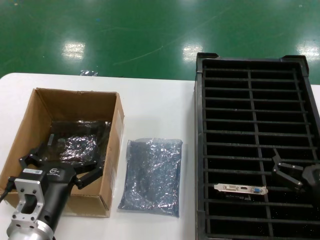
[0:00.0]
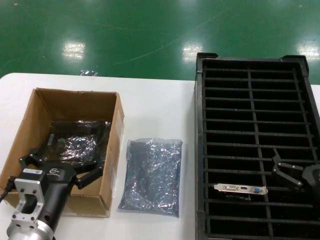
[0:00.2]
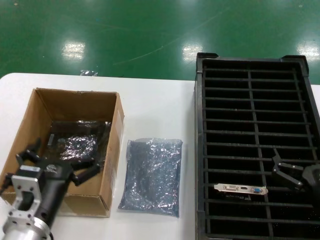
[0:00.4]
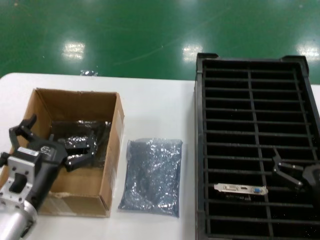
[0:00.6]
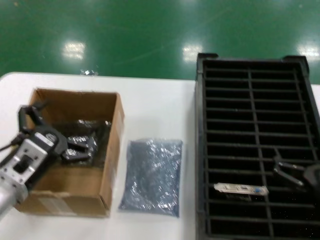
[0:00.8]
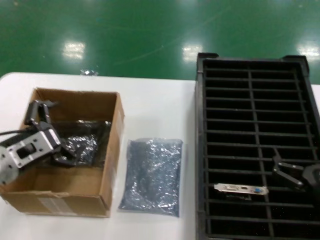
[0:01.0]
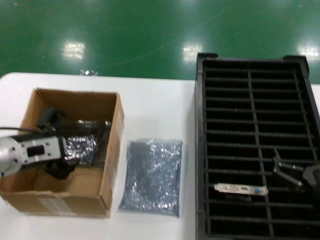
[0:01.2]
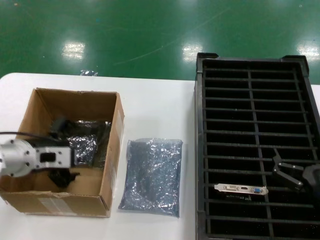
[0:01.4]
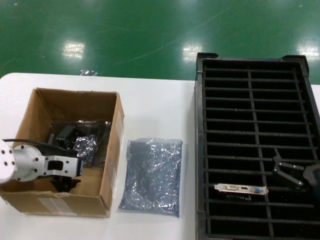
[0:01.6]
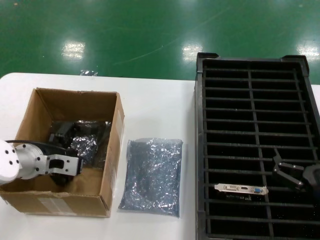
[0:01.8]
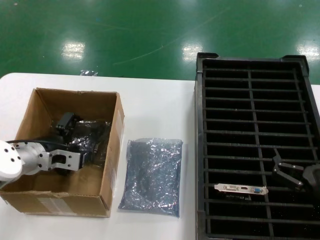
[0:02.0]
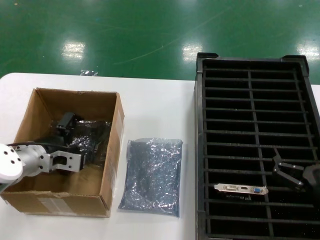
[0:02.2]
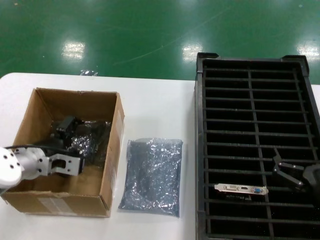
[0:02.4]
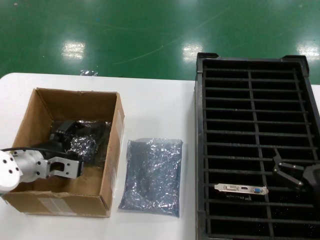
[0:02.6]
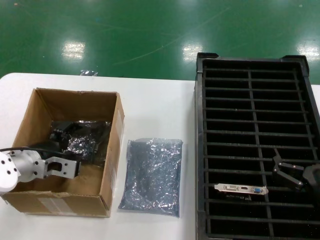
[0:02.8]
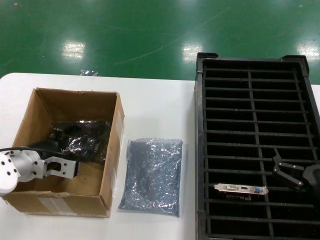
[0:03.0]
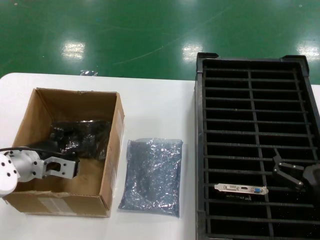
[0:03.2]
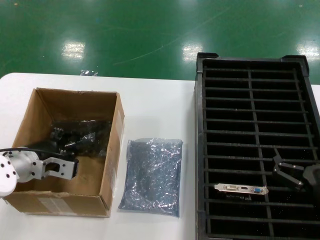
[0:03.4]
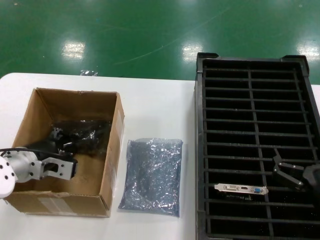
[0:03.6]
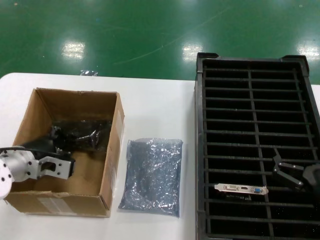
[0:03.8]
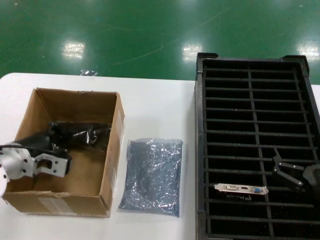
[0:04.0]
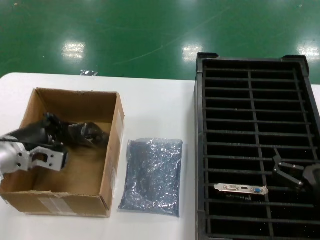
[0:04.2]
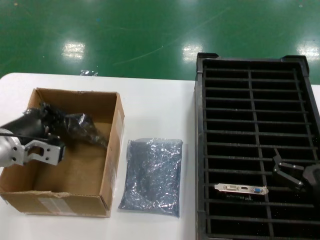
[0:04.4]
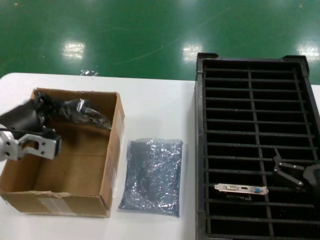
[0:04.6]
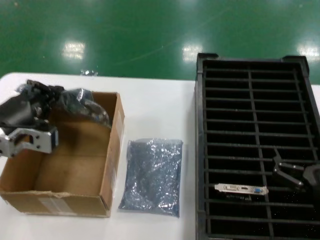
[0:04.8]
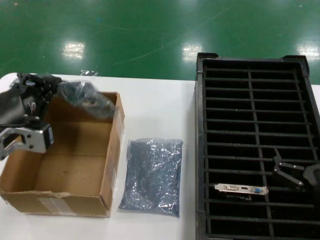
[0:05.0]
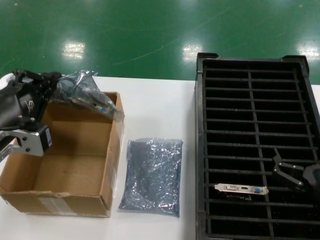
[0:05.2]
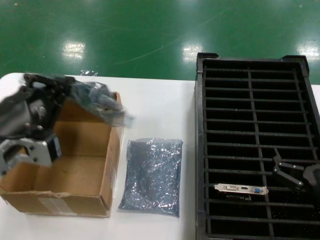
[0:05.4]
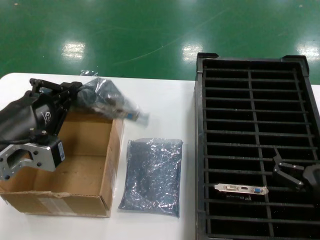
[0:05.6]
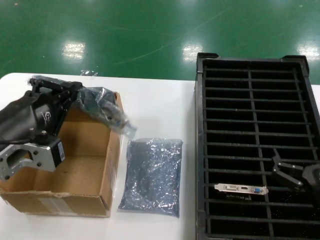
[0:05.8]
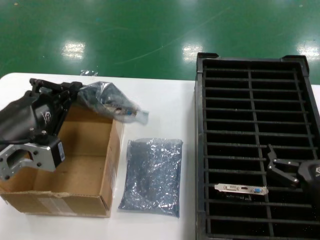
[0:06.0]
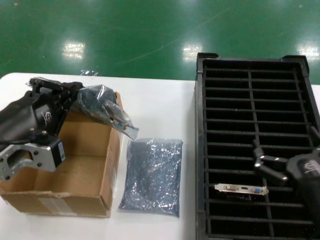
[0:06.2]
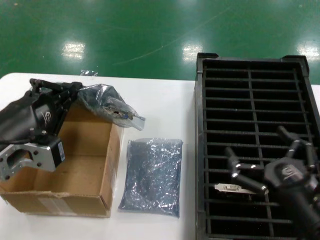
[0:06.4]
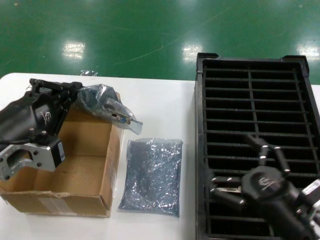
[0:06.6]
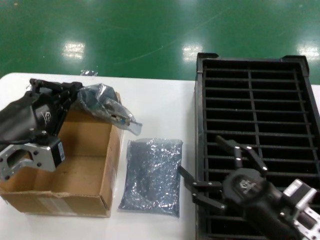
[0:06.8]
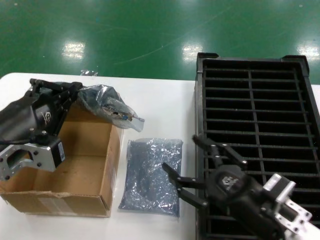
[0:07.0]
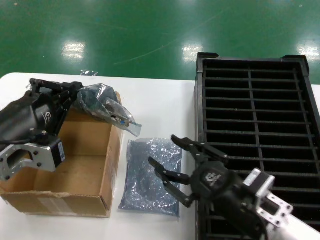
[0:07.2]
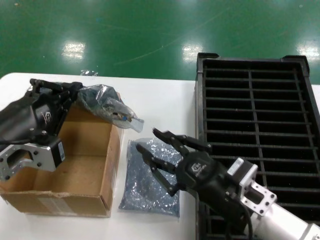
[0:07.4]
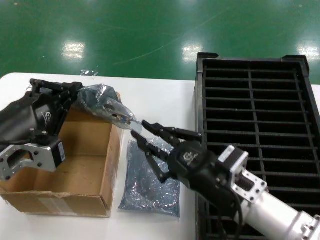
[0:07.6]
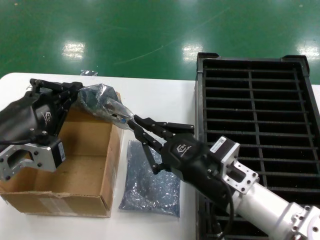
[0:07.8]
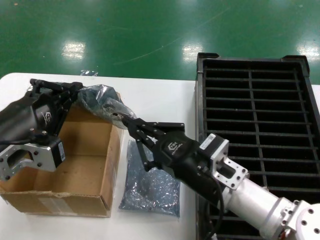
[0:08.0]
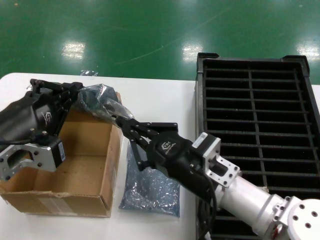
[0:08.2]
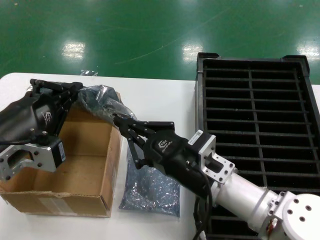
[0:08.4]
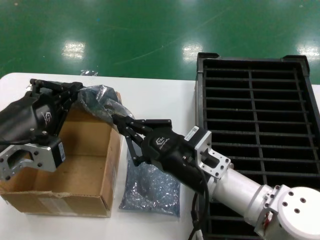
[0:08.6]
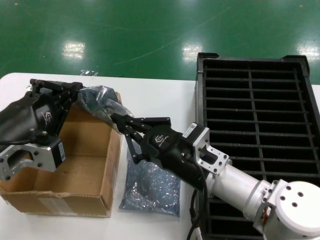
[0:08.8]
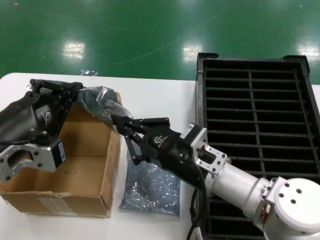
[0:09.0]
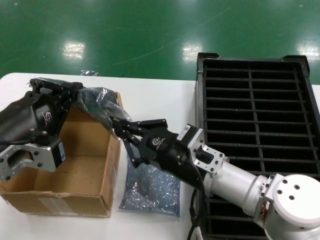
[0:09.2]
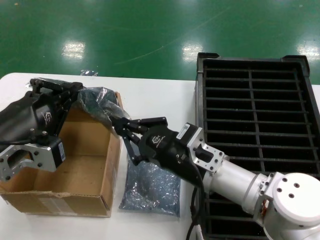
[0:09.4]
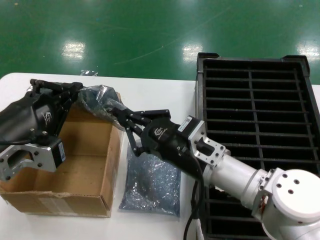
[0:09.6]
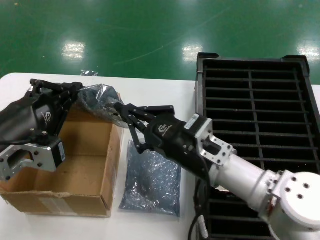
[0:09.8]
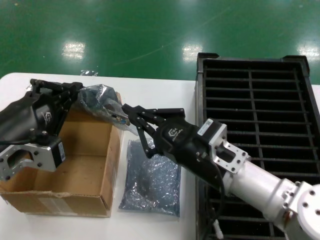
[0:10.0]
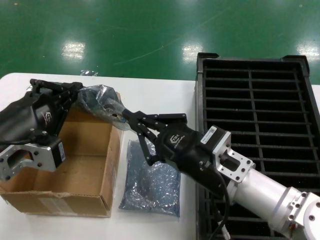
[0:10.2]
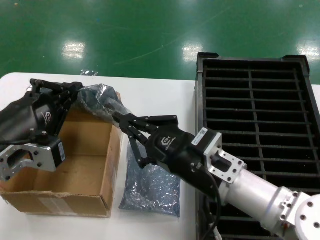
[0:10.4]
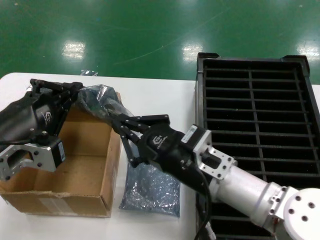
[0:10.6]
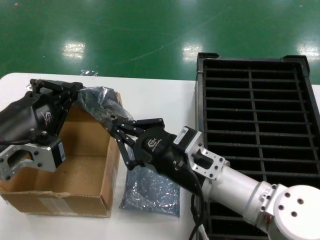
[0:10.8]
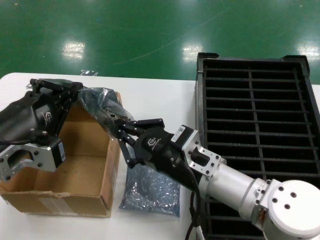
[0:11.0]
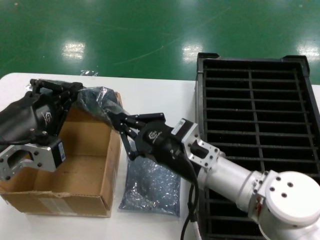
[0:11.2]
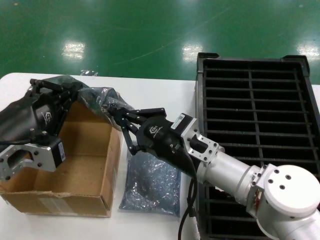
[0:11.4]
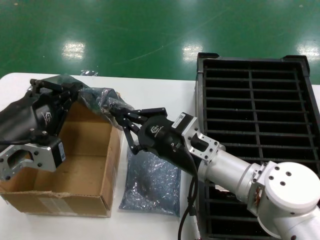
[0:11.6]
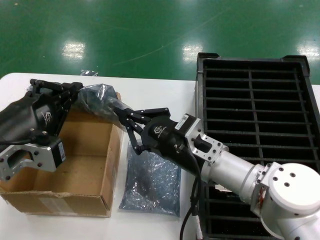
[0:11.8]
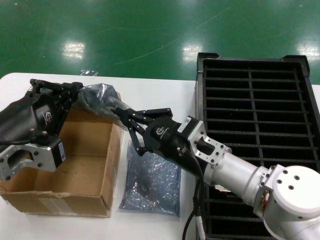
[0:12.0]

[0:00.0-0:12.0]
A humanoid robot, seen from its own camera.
Task of the whole recording: take out graphics card from box remove packaging put into black container.
Step, 0:00.0 to 0:03.6: Grasp the bag.
Step, 0:04.0 to 0:05.8: Lift the bag.
0:00.0 to 0:01.6: The left hand shifts approximately 20 cm forward, to the left and upward.
0:01.6 to 0:03.0: There are only small adjustments of the hands.
0:03.0 to 0:04.4: The left hand travels upward by roughly 5 cm.
0:04.4 to 0:06.0: The left hand goes approximately 15 cm backward, upward and to the right.
0:06.0 to 0:07.6: The right hand moves to the left and upward, roughly 15 cm.
0:07.6 to 0:09.0: The right hand shifts approximately 5 cm forward.
0:09.0 to 0:10.4: The right hand changes place by about 5 cm.
0:10.4 to 0:12.0: The right hand heads forward, covering roughly 5 cm.

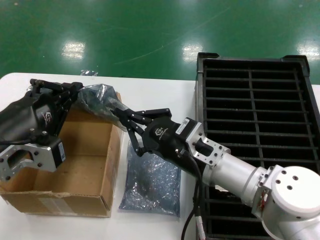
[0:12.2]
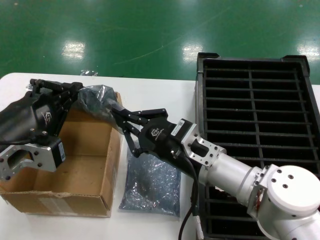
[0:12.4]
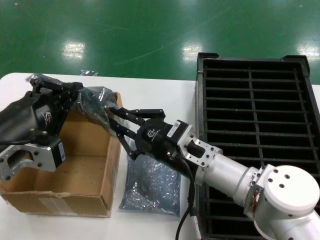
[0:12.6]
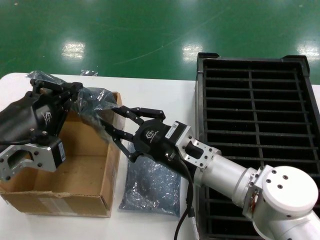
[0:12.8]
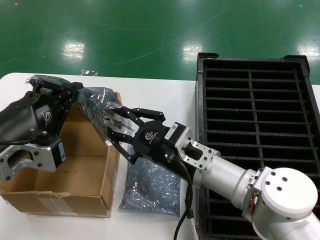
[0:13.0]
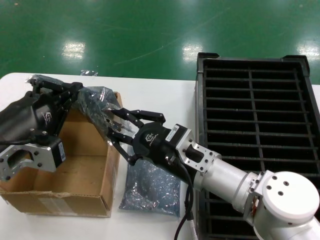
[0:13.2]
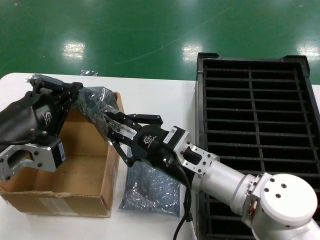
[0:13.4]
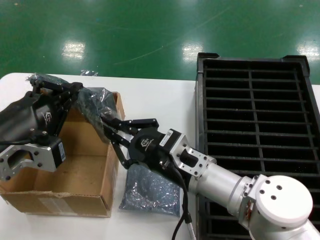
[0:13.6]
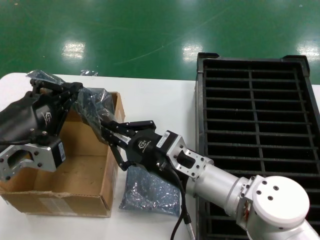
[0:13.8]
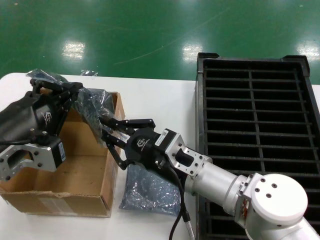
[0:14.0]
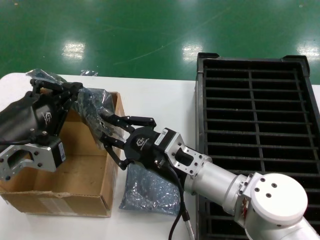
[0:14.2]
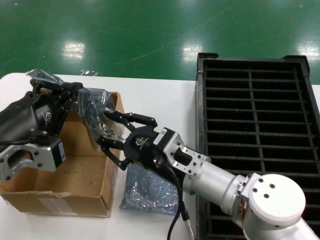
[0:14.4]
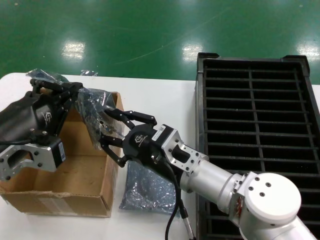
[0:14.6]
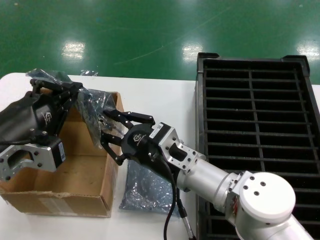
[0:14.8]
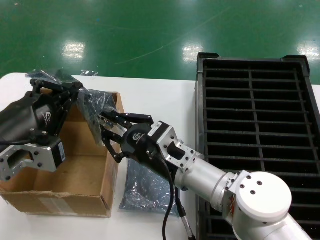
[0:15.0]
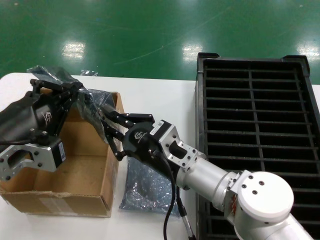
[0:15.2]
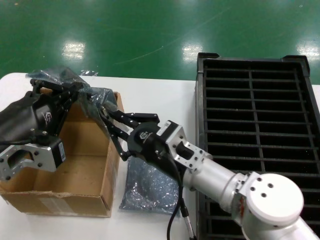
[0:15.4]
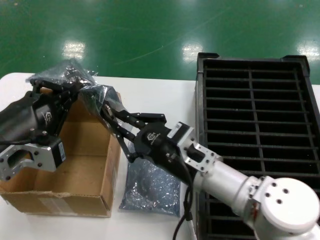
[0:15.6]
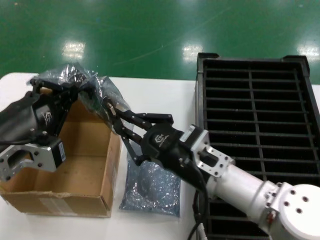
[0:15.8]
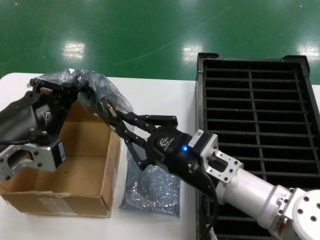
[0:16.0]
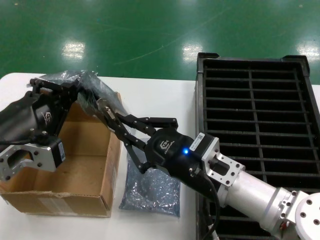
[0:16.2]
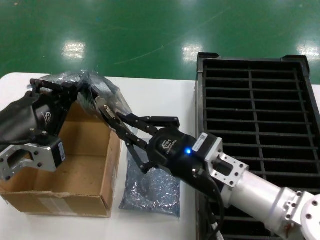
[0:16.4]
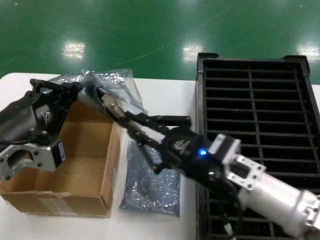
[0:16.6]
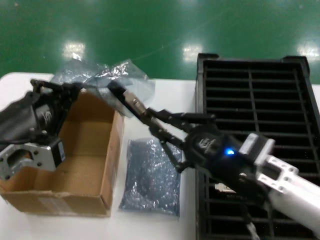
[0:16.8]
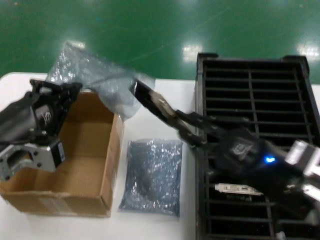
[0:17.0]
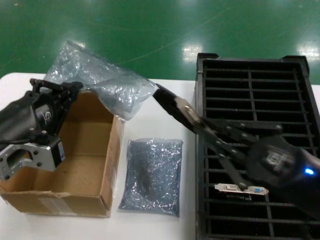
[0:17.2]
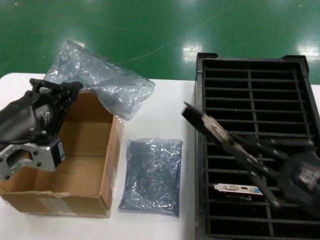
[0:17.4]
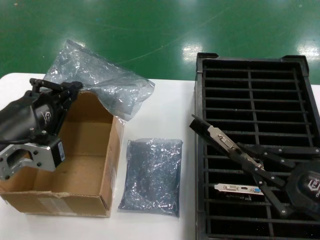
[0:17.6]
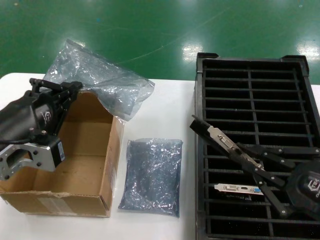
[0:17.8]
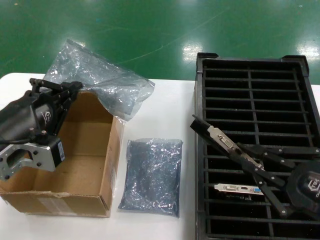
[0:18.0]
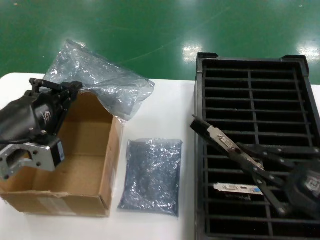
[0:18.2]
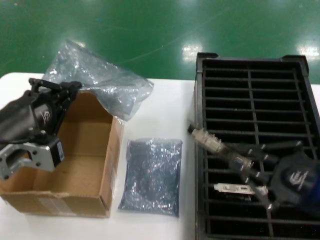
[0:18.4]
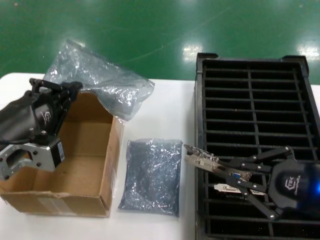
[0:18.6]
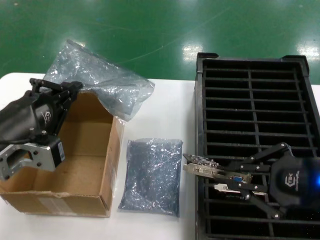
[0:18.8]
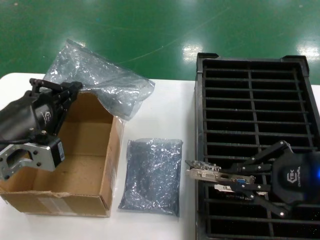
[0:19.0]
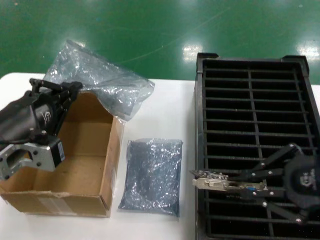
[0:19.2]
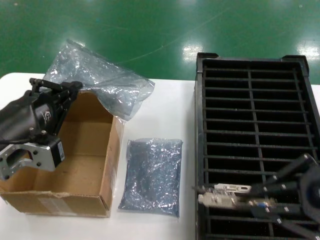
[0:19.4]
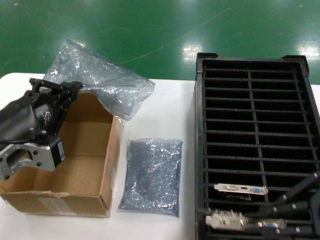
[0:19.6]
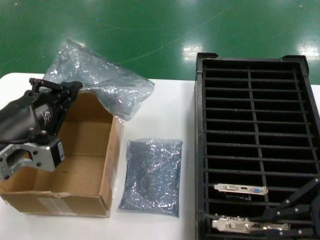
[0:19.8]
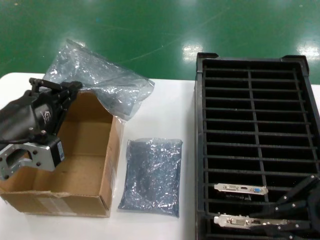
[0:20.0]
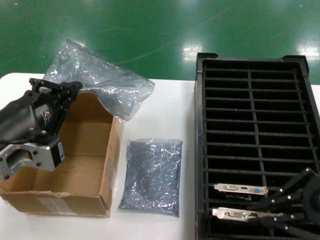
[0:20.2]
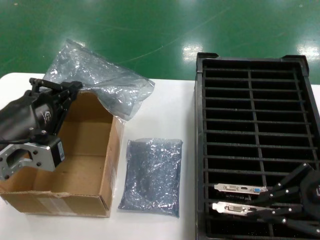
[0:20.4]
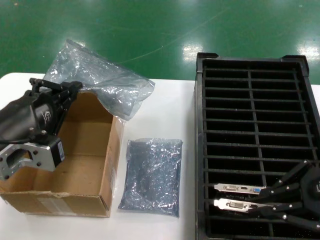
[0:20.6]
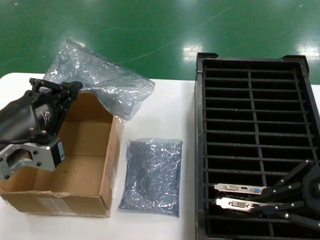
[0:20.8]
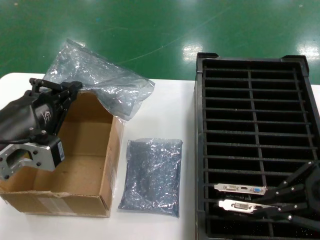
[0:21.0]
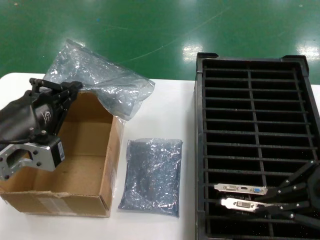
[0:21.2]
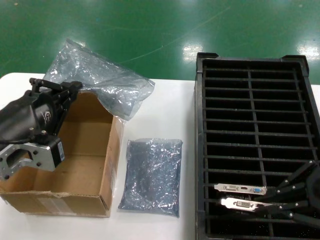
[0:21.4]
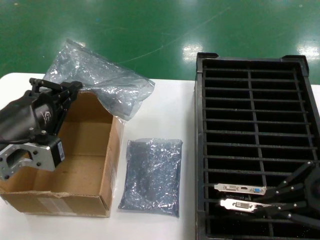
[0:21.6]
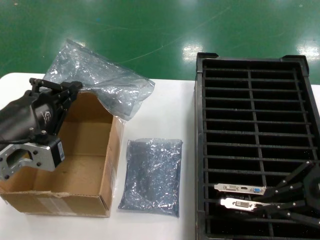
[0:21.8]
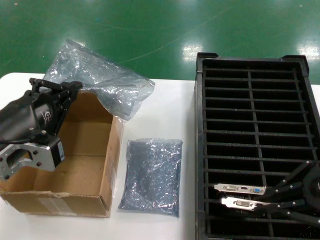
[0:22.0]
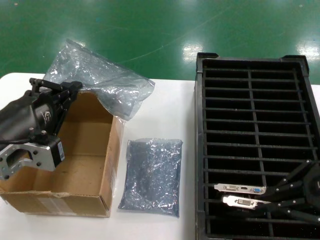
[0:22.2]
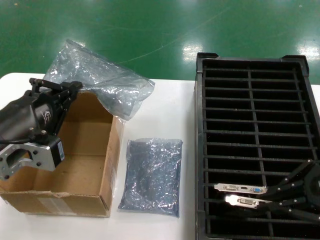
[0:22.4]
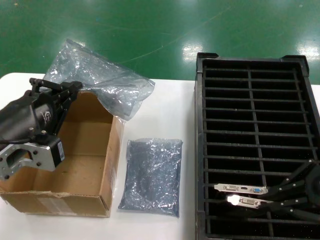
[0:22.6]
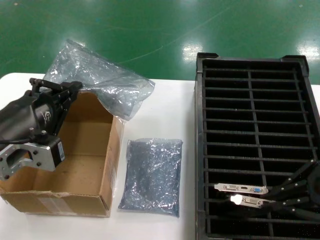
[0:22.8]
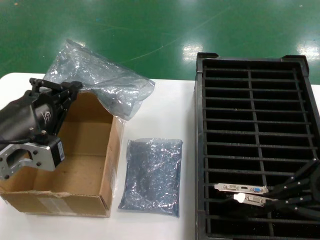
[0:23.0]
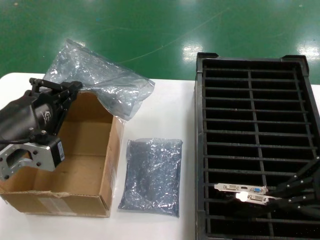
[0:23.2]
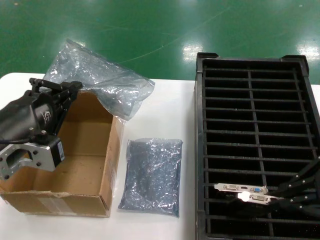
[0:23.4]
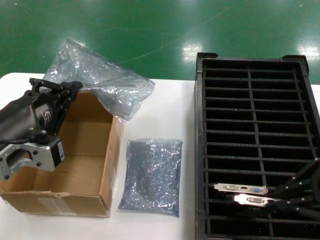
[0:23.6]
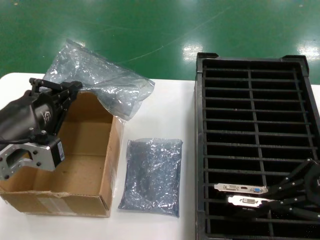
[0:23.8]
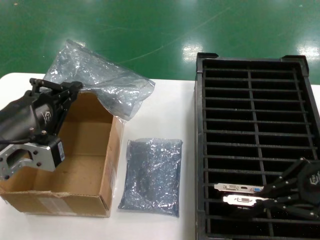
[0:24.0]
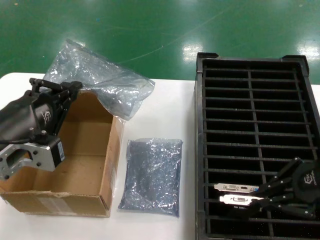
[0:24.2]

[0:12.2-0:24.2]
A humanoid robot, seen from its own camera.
Task of the whole recording: take out graphics card from box remove packaging put into black container.
Step, 0:12.2 to 0:17.2: Take out the hard disk of the bag.
0:13.8 to 0:15.2: The hands stay close to where they were, moving slightly.
0:15.2 to 0:16.6: The right hand goes about 10 cm to the right and backward.
0:16.6 to 0:18.2: The right hand travels to the right and backward by some 20 cm.
0:18.2 to 0:19.8: The right hand travels upward by approximately 10 cm.
0:19.8 to 0:21.2: The right hand is displaced forward by some 5 cm.
0:21.2 to 0:24.2: The hands move only a little.
